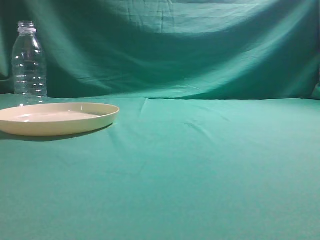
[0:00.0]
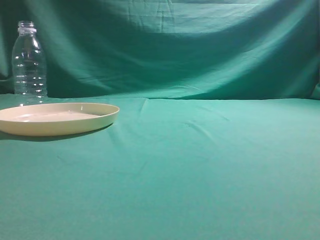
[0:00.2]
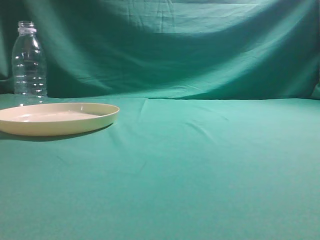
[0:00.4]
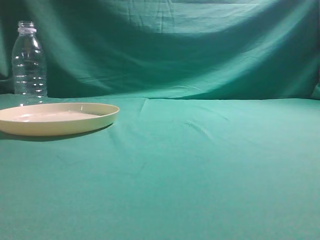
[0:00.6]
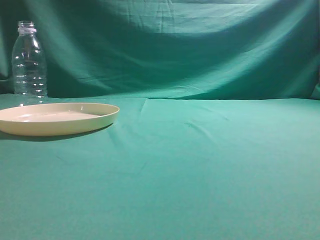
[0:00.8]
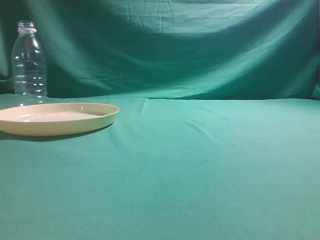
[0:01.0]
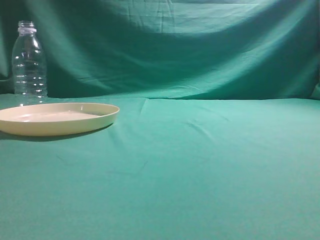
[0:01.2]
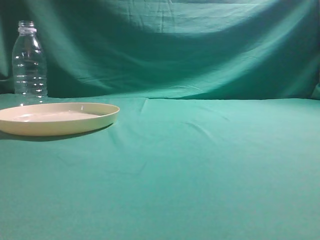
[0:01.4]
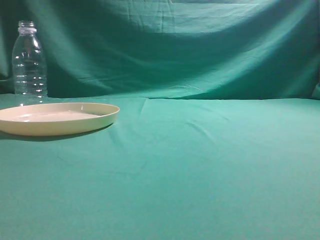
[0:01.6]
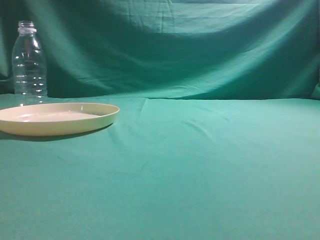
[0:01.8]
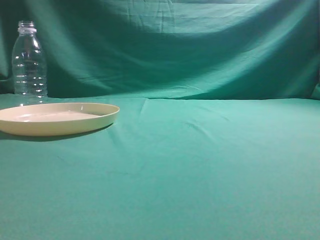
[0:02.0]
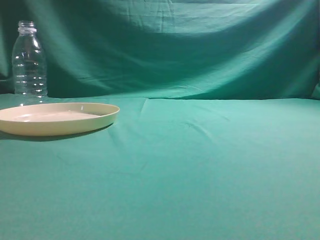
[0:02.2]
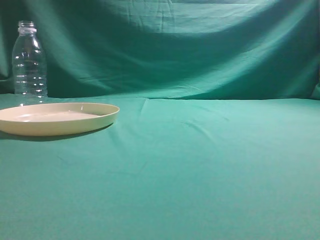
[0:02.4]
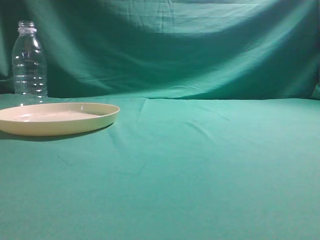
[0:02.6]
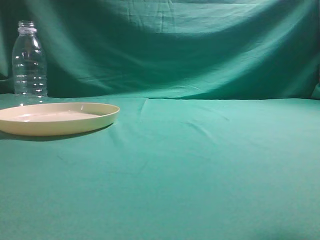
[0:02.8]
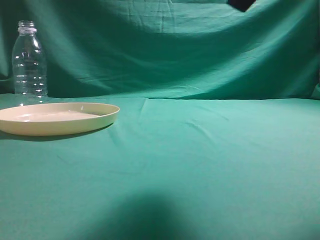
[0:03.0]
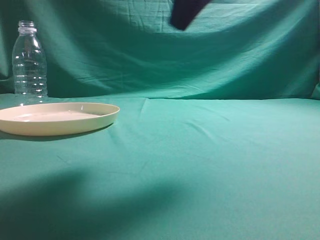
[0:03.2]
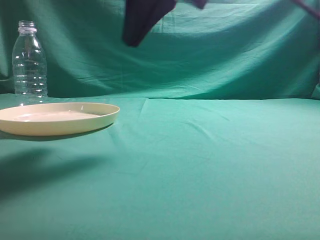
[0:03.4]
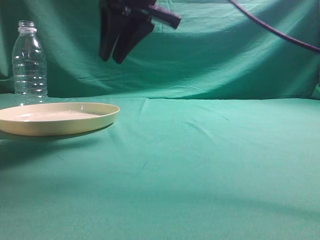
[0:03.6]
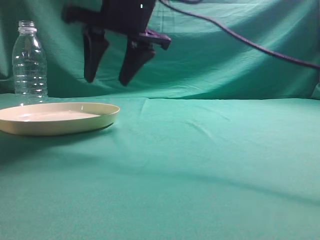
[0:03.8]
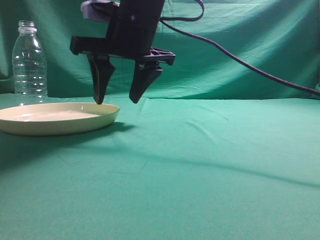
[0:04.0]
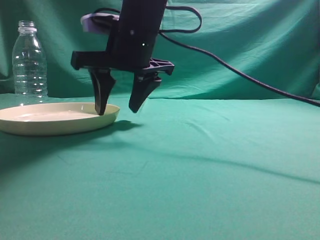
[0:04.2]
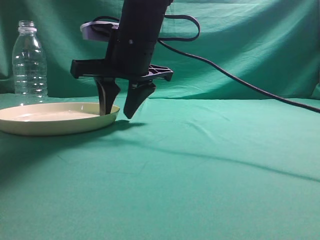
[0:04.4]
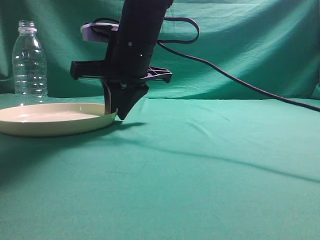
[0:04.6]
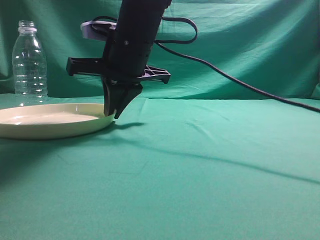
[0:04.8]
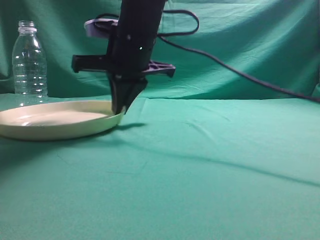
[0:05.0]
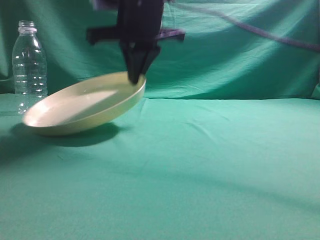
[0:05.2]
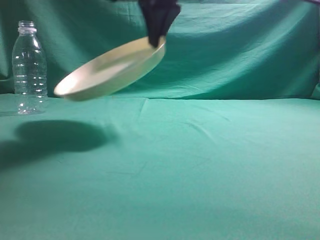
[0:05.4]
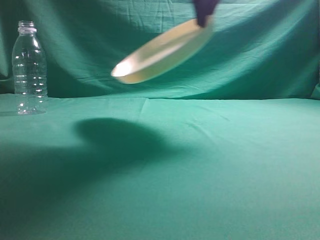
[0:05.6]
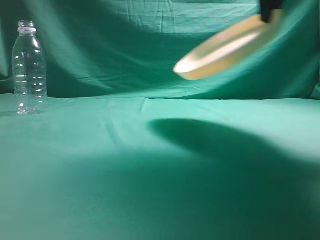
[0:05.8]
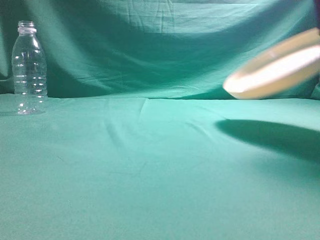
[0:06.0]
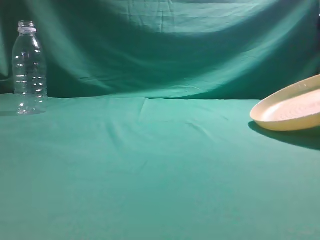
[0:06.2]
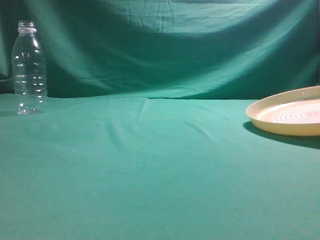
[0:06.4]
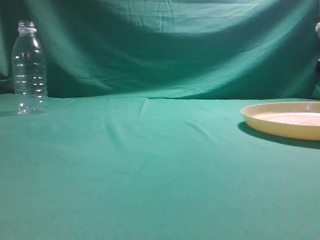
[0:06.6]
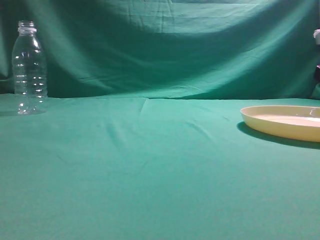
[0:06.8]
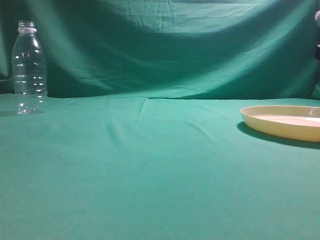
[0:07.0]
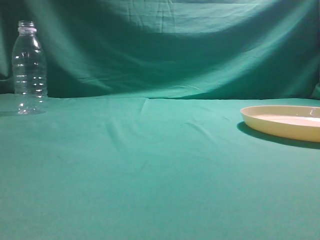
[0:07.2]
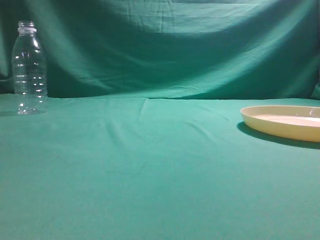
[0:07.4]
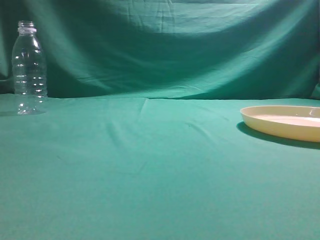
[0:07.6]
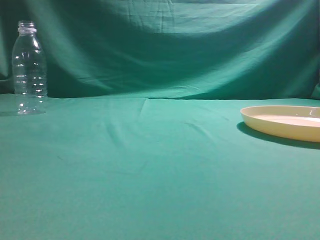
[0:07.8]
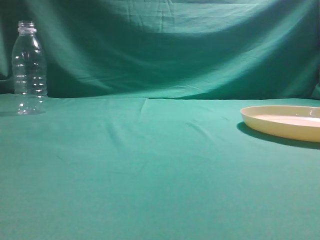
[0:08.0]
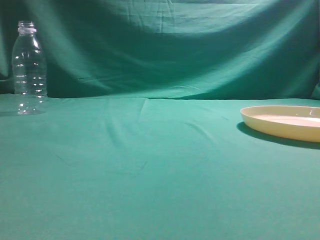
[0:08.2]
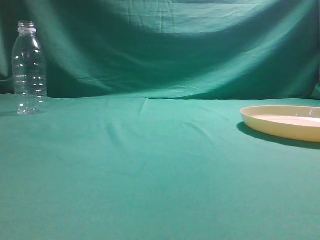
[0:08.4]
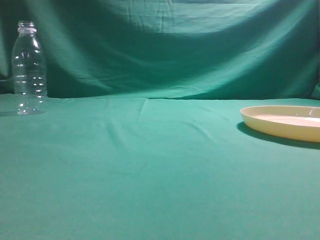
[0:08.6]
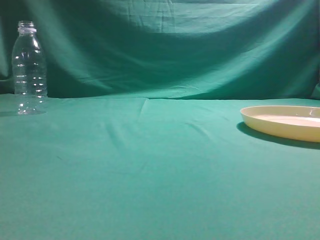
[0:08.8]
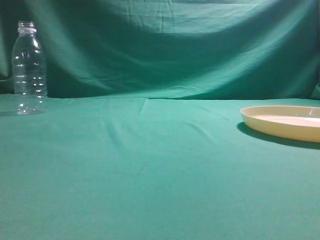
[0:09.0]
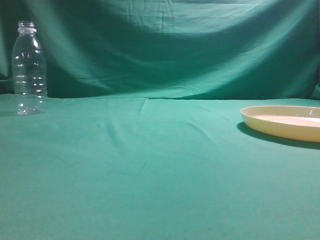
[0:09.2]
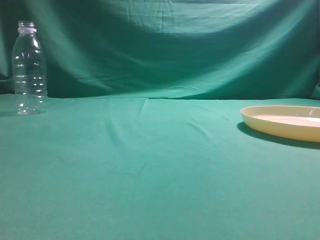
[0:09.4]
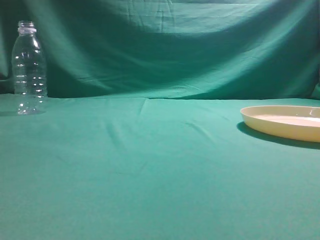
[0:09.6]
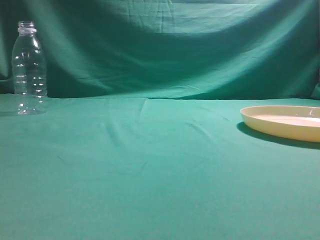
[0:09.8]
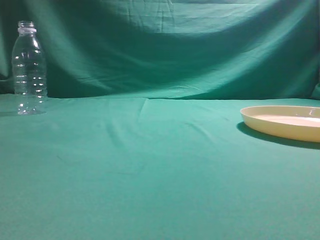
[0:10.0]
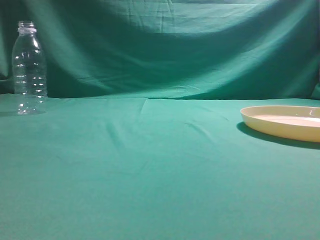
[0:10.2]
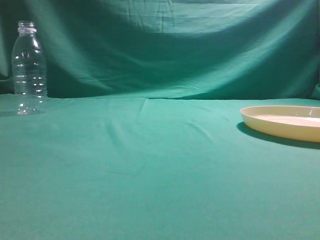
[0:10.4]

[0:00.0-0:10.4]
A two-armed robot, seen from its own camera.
Step, 0:00.0 to 0:05.2: Pick the container that can hold fruits.
Step, 0:05.4 to 0:07.0: Move the picked object to the right side of the table.
0:01.4 to 0:03.0: The right gripper moves forward, to the left and upward, some 20 cm.
0:03.0 to 0:04.4: The right gripper shifts about 30 cm to the left, forward and downward, and opens up.
0:04.4 to 0:06.0: The right gripper is displaced to the right and upward by roughly 30 cm, and closes up.
0:06.0 to 0:07.4: The right gripper heads to the right and backward, covering about 10 cm, goes downward and returns, roughly 15 cm each way, and opens.
